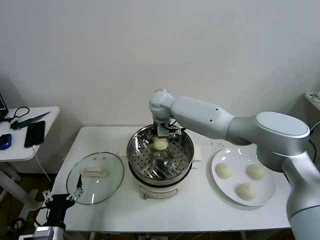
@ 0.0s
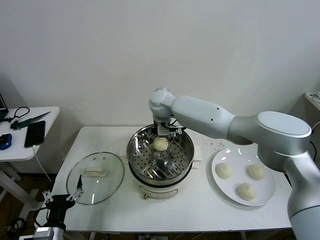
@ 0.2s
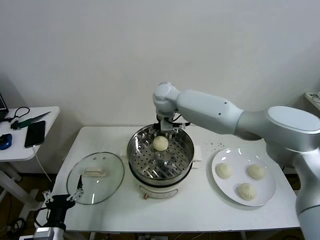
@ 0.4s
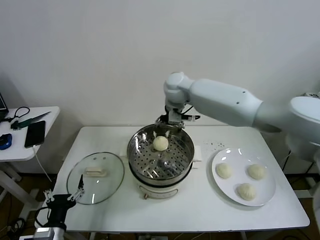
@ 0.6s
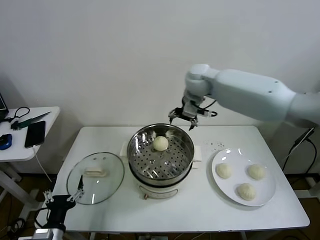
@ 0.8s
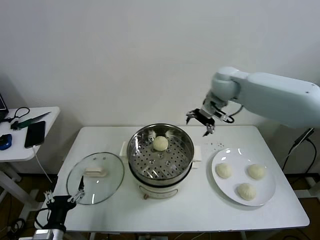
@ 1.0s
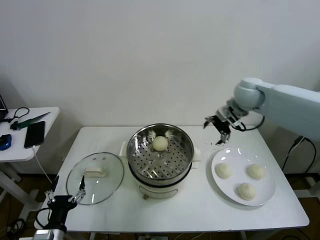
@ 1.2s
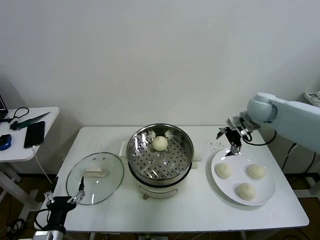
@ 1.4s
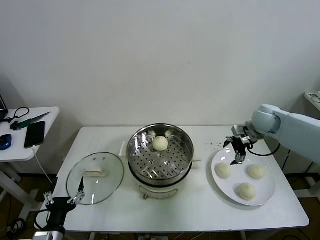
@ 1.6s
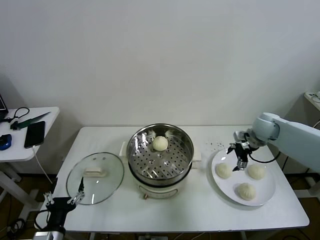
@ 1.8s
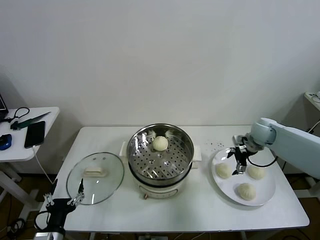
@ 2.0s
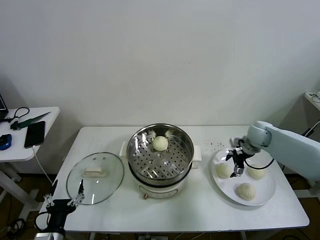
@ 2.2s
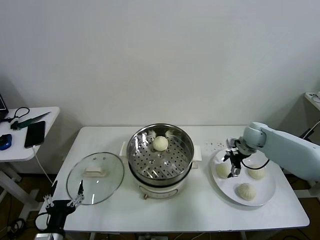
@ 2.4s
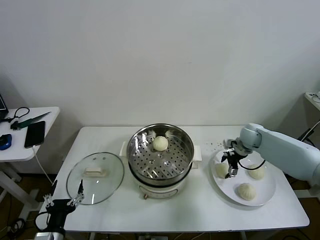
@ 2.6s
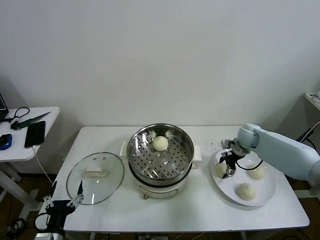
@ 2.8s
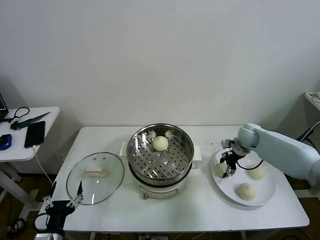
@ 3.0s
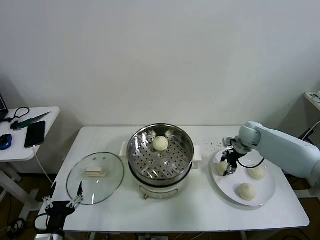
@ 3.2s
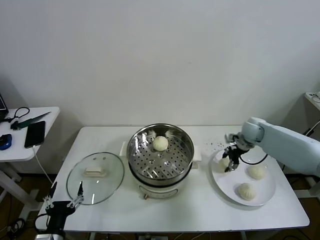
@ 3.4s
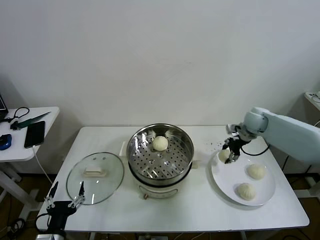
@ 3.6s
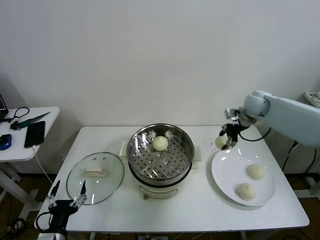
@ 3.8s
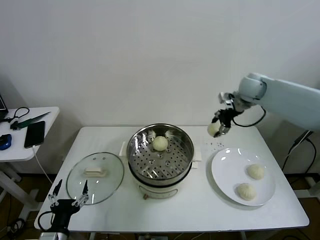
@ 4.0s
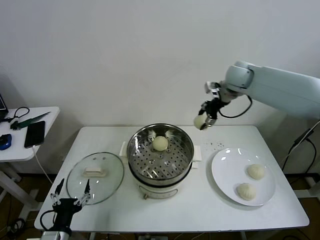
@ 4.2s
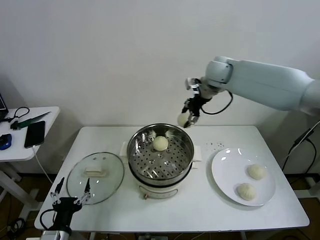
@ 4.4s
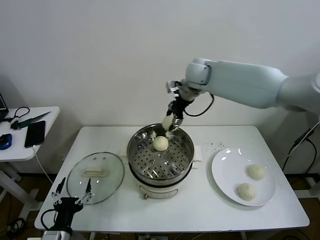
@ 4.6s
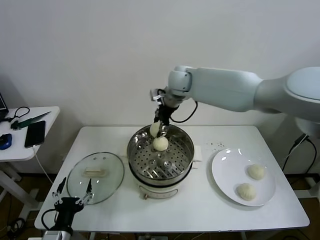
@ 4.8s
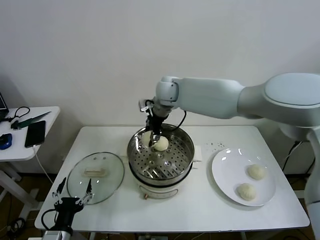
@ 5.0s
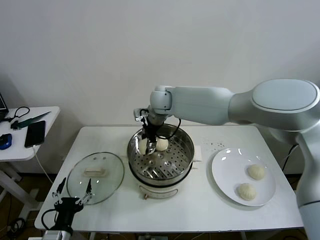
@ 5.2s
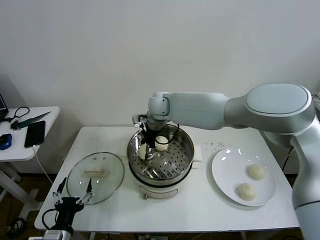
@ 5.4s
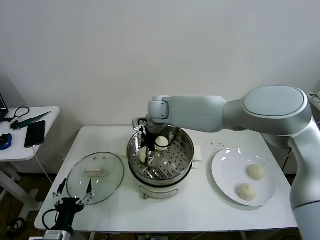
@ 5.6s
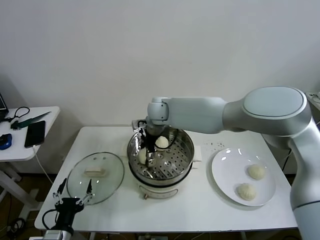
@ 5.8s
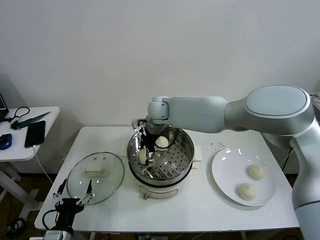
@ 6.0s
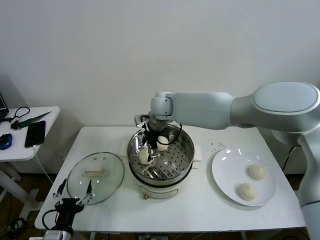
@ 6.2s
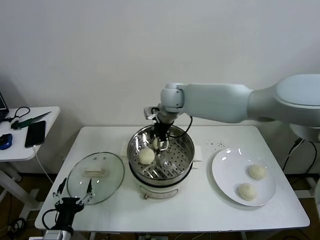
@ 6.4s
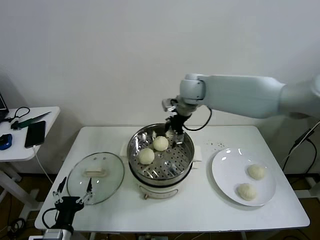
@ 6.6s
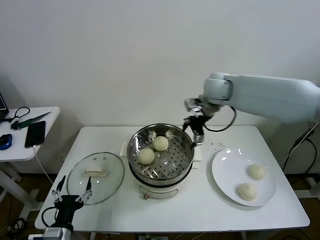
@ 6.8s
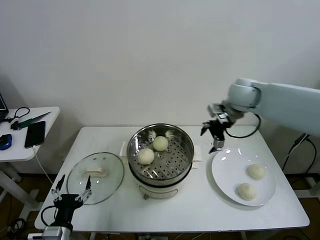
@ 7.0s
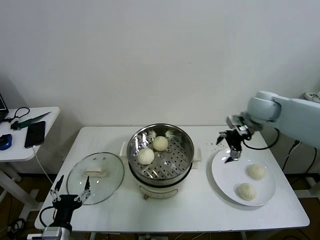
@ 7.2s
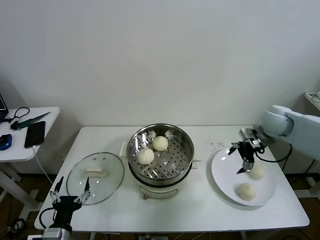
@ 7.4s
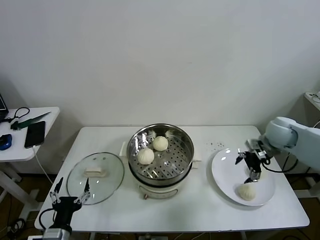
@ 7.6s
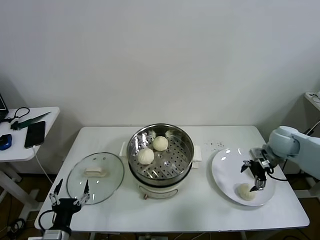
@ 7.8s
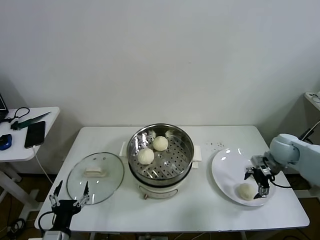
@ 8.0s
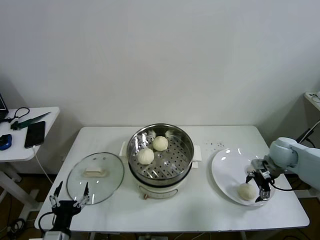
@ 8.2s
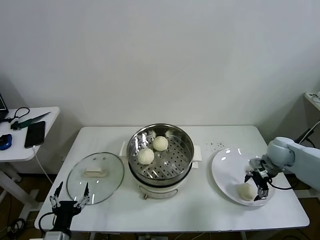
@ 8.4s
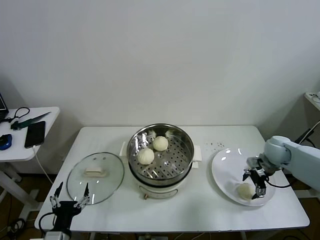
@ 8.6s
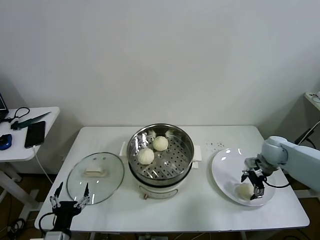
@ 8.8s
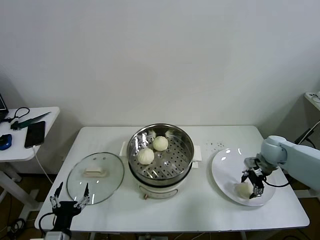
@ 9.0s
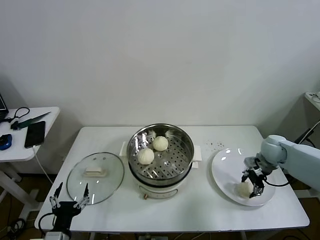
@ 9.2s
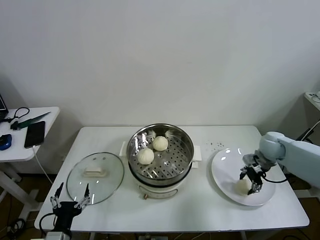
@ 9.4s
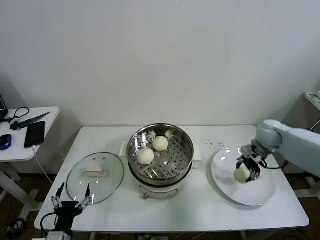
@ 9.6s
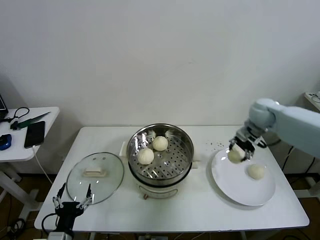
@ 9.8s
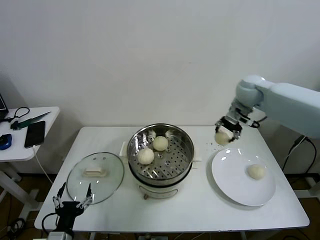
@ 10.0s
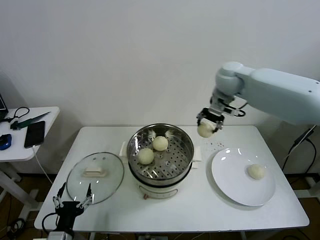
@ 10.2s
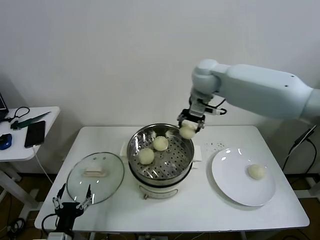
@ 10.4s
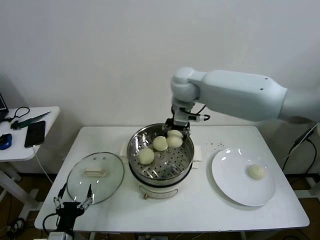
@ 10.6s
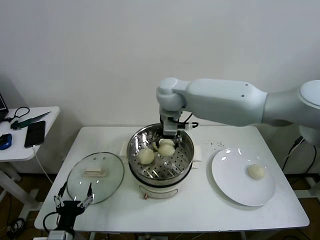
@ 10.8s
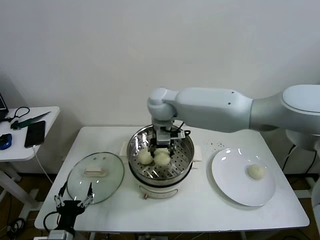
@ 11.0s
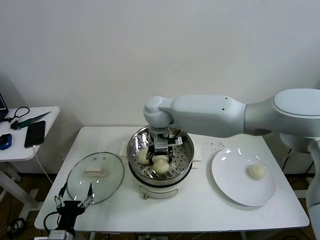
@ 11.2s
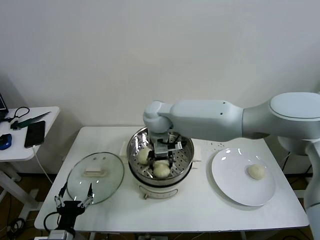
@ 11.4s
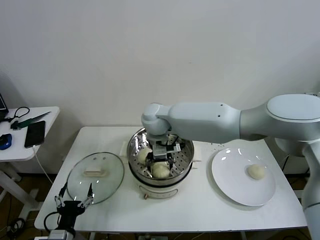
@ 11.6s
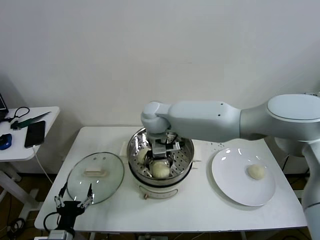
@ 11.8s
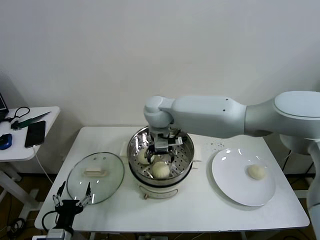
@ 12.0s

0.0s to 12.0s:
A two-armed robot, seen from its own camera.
Task of the whole recording: take steamed baozi put them in steamer then cover it.
Step, 0.4s to 3.0s: Grasp the baozi in the plate with right gripper.
Step, 3.2s to 6.0s: Place the baozi on the steamer with right gripper.
Step, 6.2s to 9.2s: Grasp the baozi in the plate with right gripper.
Step, 9.4s to 11.8s: Place the baozi on the steamer with right gripper.
0.0s to 1.6s: The right gripper heads to the right, covering some 35 cm.
1.6s to 3.0s: The right gripper is displaced downward by about 10 cm, and closes up.
3.0s to 4.4s: The right gripper heads upward and to the left, covering roughly 30 cm.
4.4s to 6.0s: The right gripper is displaced to the left and downward by about 20 cm, and opens.
6.0s to 7.6s: The right gripper goes roughly 40 cm to the right.
7.6s to 9.0s: The right gripper is displaced downward by some 10 cm, and closes up.
9.0s to 10.4s: The right gripper travels to the left and upward by roughly 40 cm.
10.4s to 12.0s: The right gripper travels to the left and downward by roughly 15 cm, and opens up.

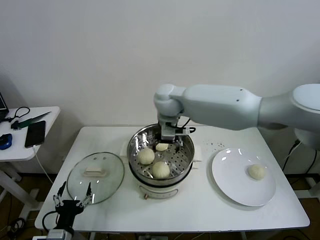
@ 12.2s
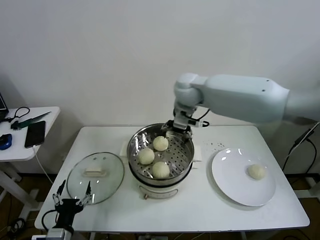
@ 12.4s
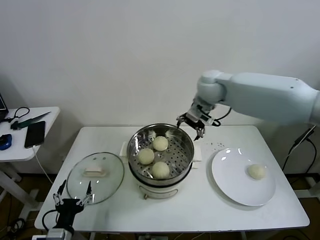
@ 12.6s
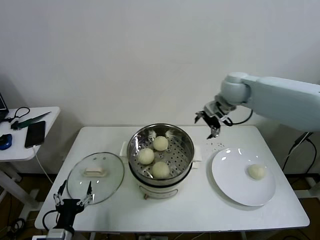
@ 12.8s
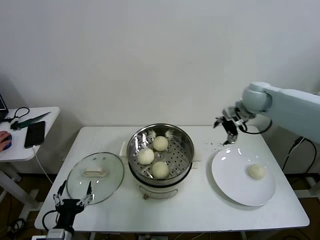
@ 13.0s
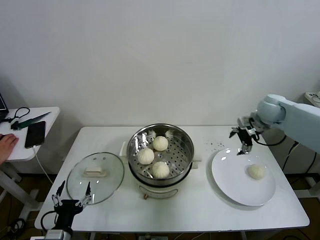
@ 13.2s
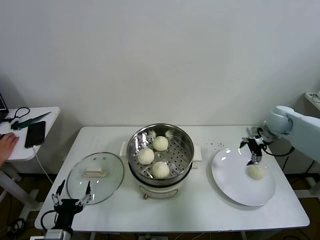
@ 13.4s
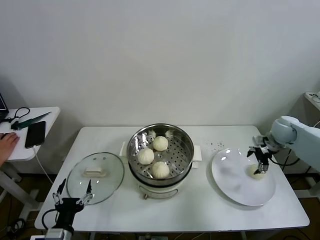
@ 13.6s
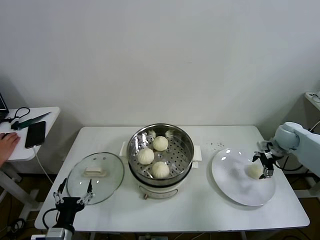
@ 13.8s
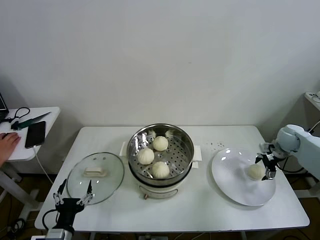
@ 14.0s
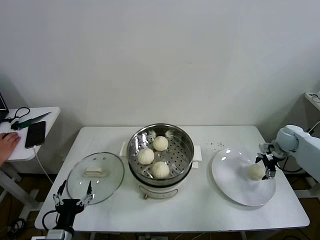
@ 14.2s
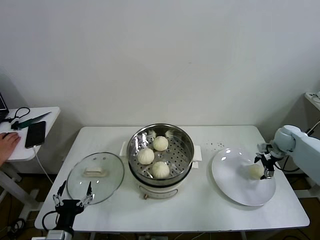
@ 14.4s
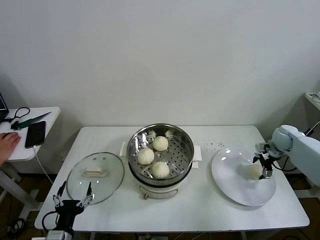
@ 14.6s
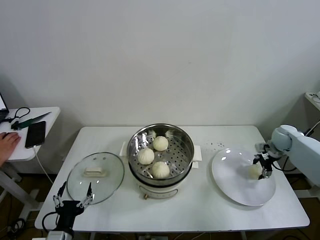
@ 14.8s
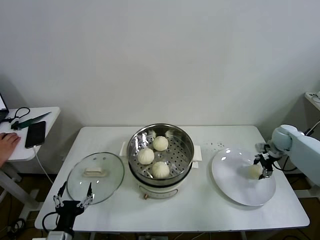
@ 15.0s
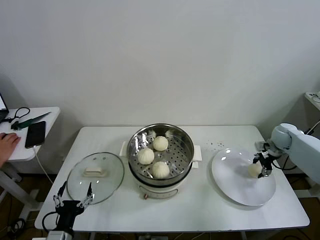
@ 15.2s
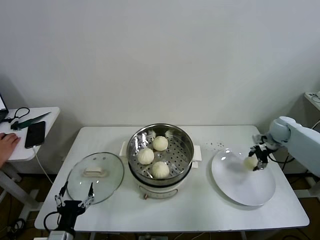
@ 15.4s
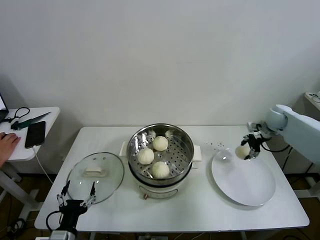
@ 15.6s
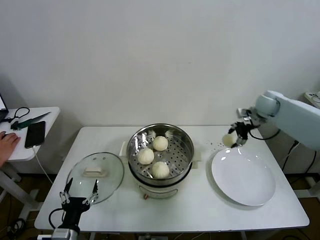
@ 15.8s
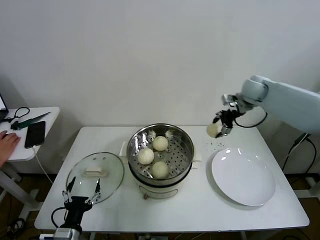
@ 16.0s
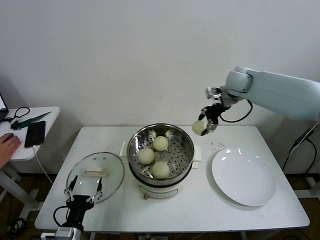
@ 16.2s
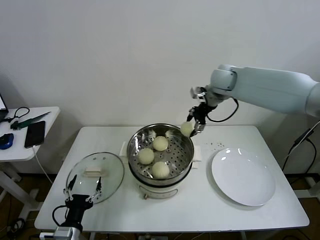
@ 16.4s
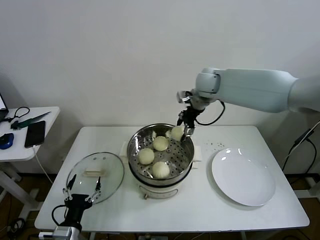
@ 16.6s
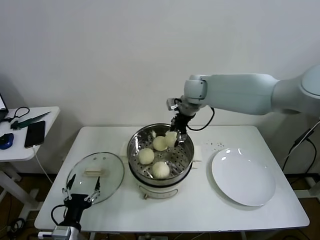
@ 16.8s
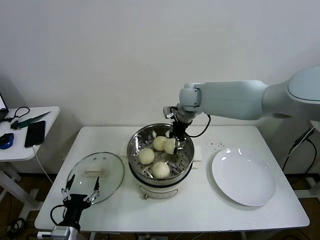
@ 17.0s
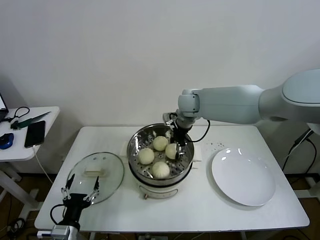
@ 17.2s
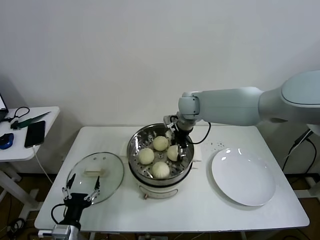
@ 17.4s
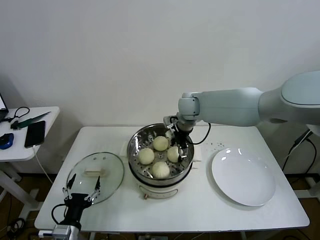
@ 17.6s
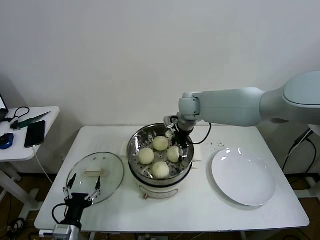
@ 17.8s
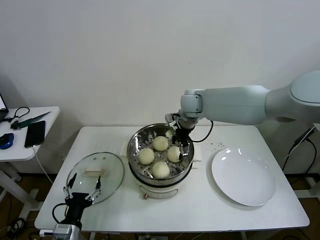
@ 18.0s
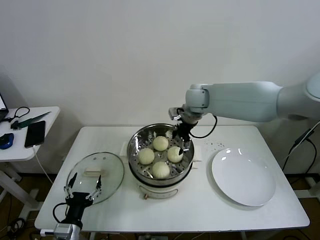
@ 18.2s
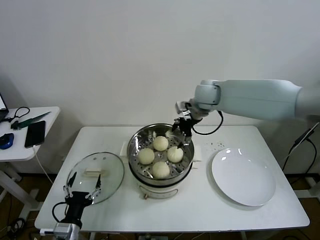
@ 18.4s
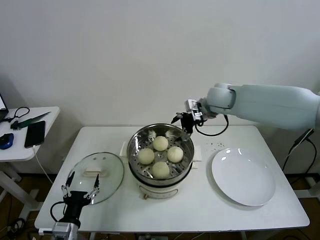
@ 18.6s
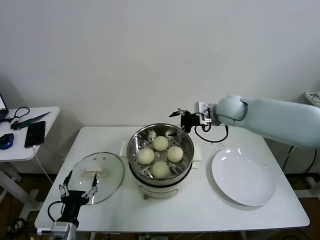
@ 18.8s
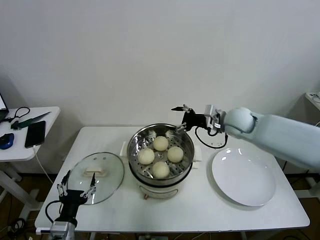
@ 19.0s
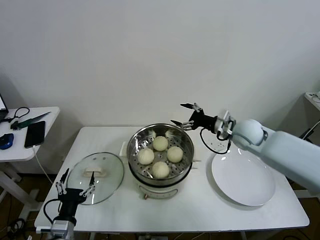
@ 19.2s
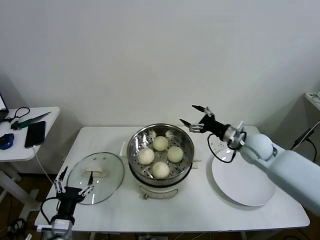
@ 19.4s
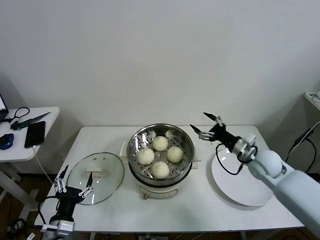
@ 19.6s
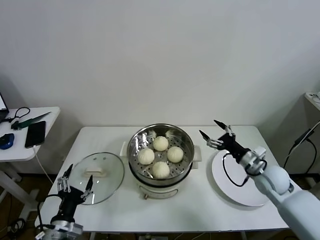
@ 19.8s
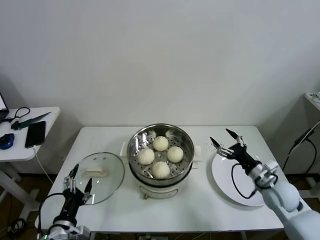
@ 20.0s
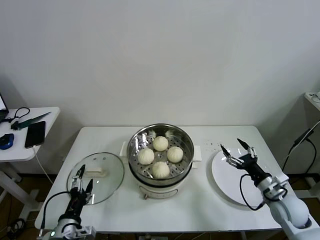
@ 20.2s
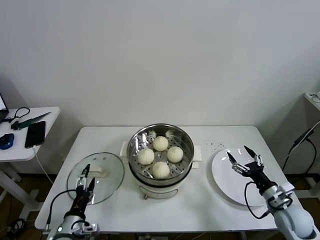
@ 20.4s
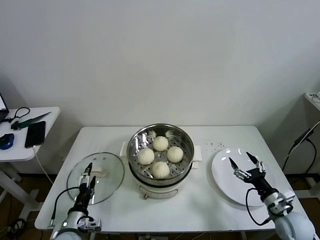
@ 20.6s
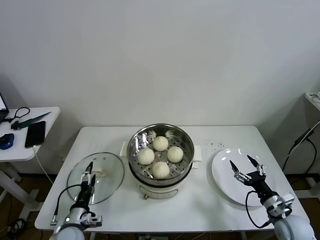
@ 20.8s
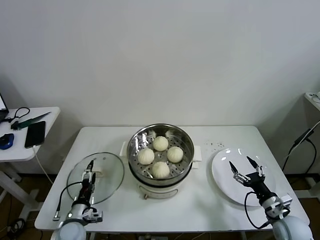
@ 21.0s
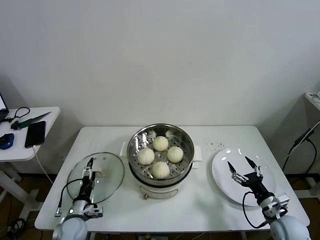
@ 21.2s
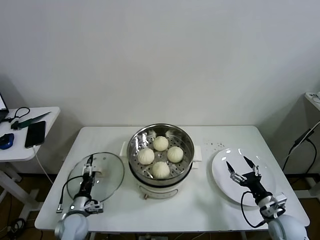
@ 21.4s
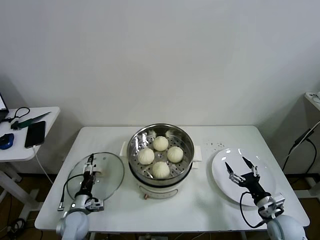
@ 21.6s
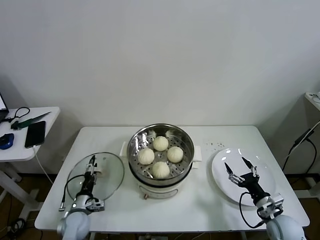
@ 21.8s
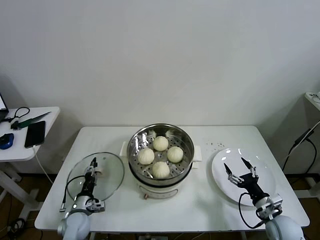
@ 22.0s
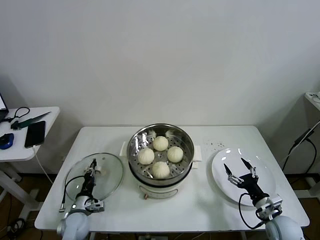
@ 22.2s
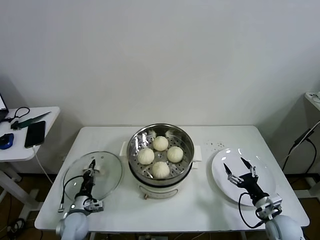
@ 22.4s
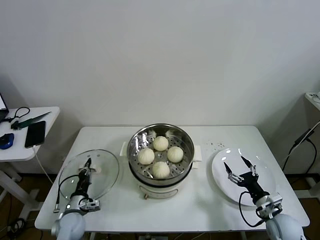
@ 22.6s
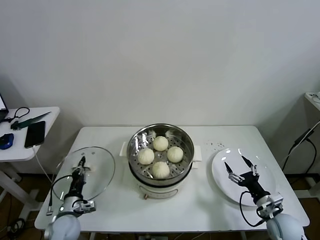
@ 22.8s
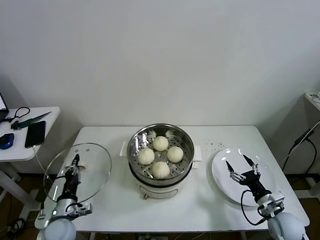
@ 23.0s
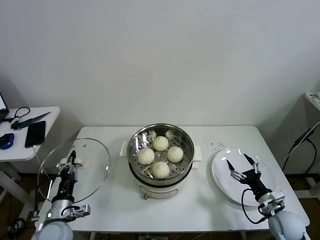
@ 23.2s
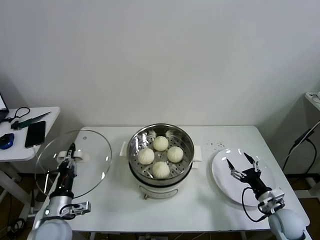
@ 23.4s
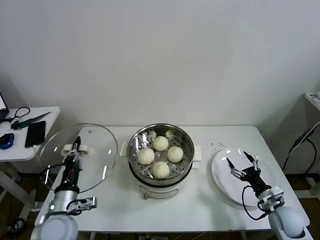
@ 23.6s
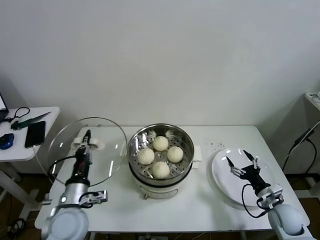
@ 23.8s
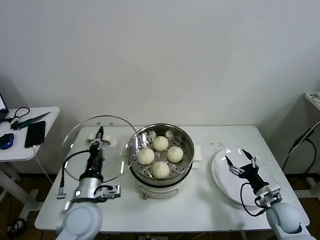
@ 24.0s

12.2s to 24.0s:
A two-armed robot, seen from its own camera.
Task of the whole recording: take steamed baozi put them in steamer then cover it.
Step, 12.2s to 14.8s: Grasp the baozi in the plate with right gripper.
Step, 15.2s to 17.8s: Place the baozi on the steamer with right gripper.
Step, 18.0s to 22.2s: Grasp the pot lid with left gripper.
12.2s to 13.6s: The right gripper shifts approximately 40 cm to the right.
13.6s to 15.2s: The right gripper travels downward by about 5 cm, and closes its fingers.
15.2s to 16.6s: The right gripper heads to the left and upward, covering roughly 40 cm.
16.6s to 18.2s: The right gripper opens.
18.2s to 19.6s: The right gripper travels to the right, downward and backward by roughly 30 cm.
19.6s to 21.0s: The left gripper is displaced downward and forward by some 15 cm, while the right gripper goes roughly 20 cm backward, downward and to the right.
21.0s to 22.6s: The left gripper ends up about 5 cm from where it was, and closes up.
22.6s to 24.0s: The left gripper shifts approximately 25 cm upward and to the right.
